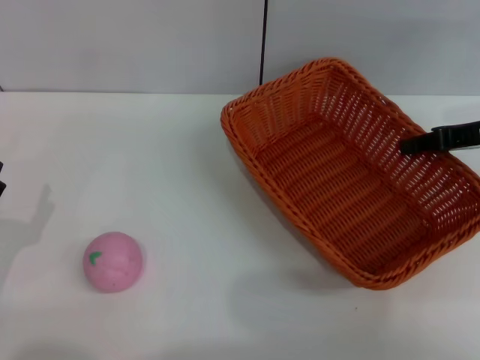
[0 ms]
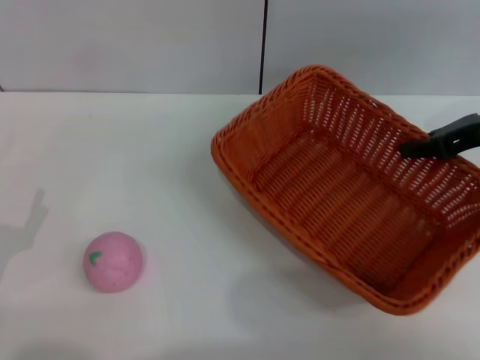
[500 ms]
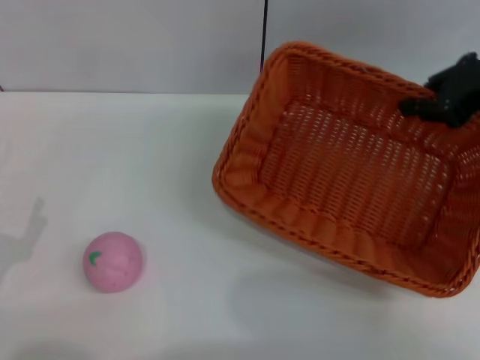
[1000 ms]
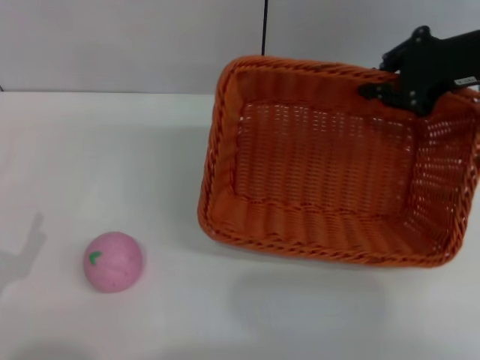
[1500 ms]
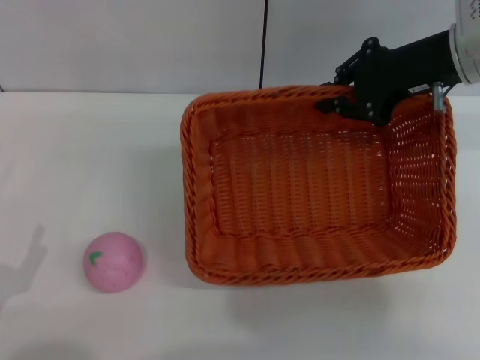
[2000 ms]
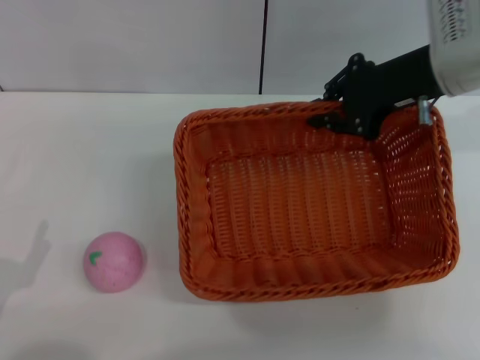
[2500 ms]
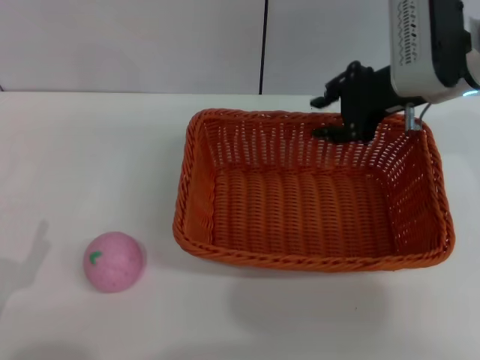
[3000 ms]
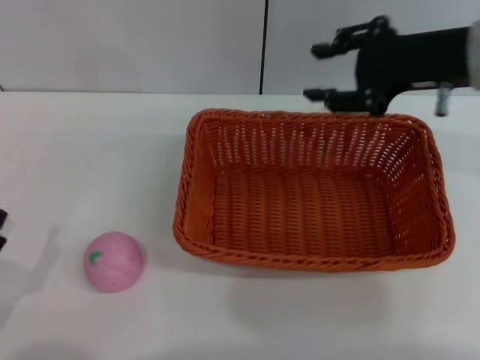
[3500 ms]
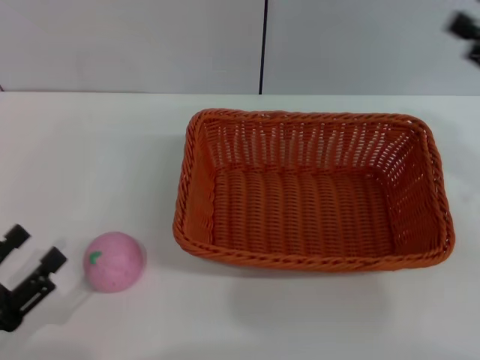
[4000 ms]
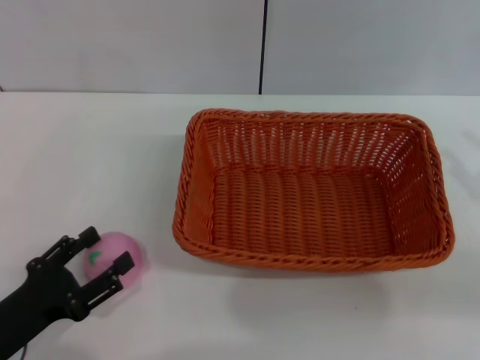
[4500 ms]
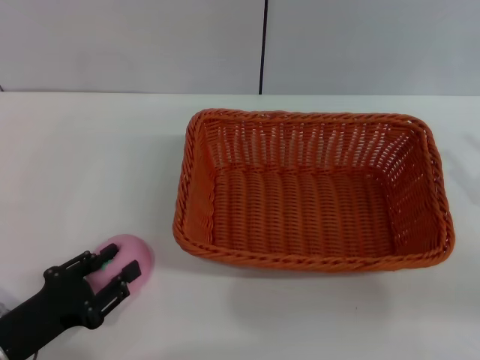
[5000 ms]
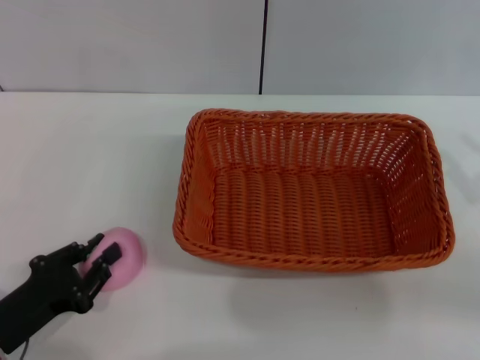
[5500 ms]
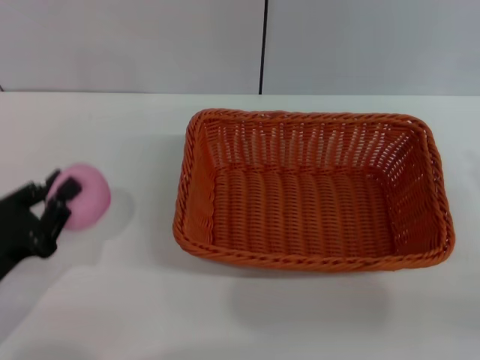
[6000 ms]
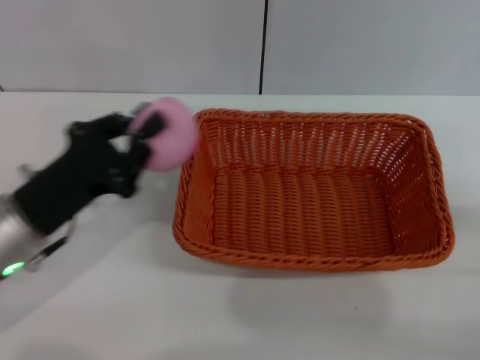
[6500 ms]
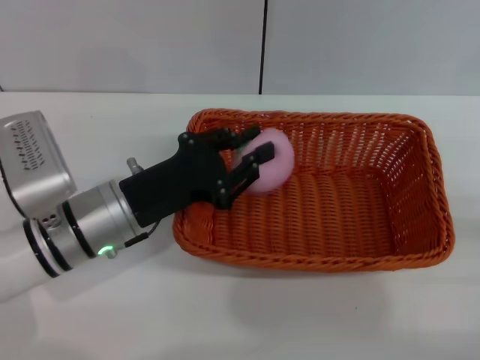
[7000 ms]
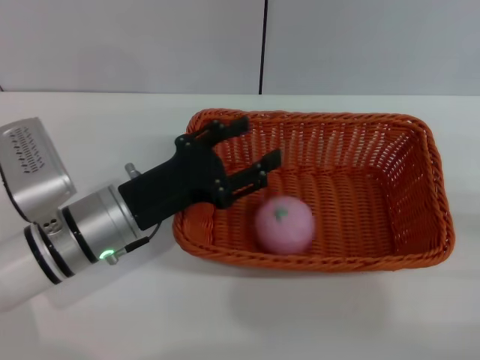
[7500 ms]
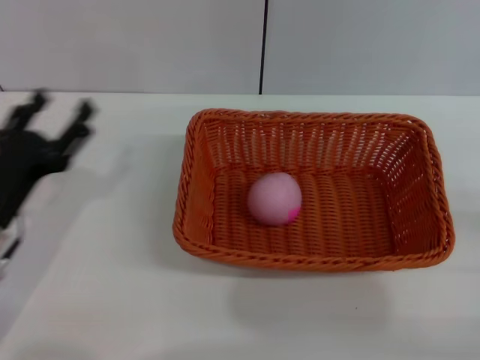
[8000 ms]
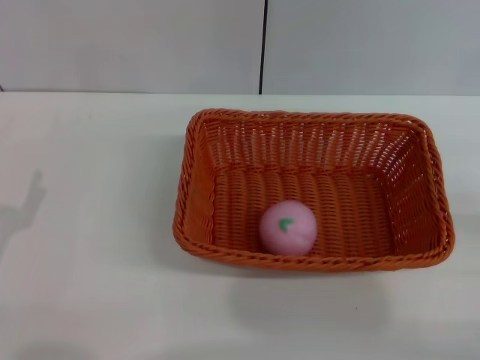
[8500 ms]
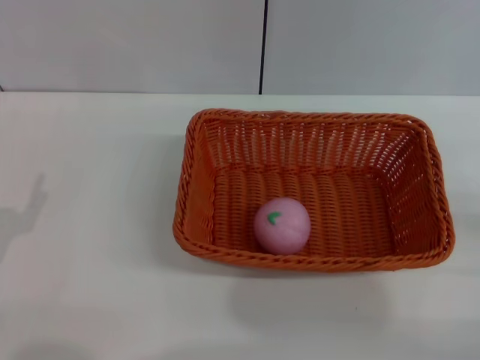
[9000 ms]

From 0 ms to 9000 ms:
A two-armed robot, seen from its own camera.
Step, from 1500 ms to 3500 ms: Place the light basket in the center of view with the right gripper.
Step, from 4000 ms to 6000 ms: Pick up the peach with the left gripper.
Step, from 6500 ms to 7500 ms: Place the peach into the basket with the left gripper.
From 0 ms to 2000 ms: The right gripper moves to the left and upward, roughly 10 cm. The left gripper travels backward by some 5 cm.
From 2000 ms to 4500 ms: The right gripper travels backward, to the right and downward by approximately 25 cm, and opens.
From 4500 ms to 7000 ms: The right gripper heads downward and backward, covering about 10 cm, while the left gripper shifts approximately 20 cm forward, to the right and upward, and closes its fingers.
From 7000 ms to 9000 ms: The left gripper shifts about 20 cm to the left and backward, and opens its fingers.
